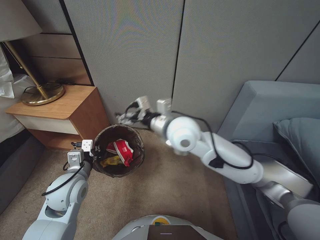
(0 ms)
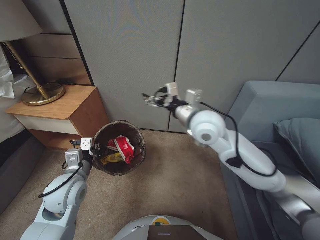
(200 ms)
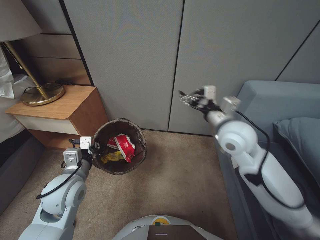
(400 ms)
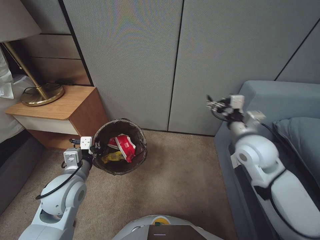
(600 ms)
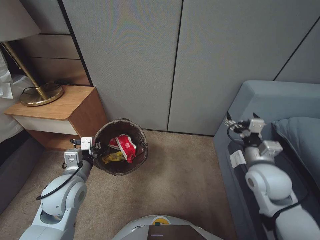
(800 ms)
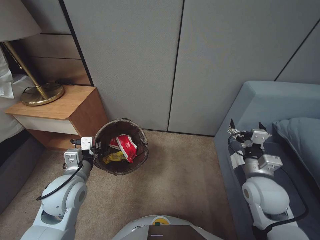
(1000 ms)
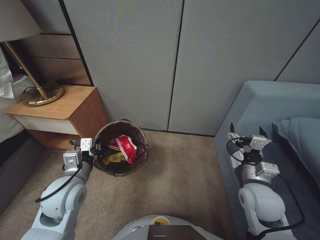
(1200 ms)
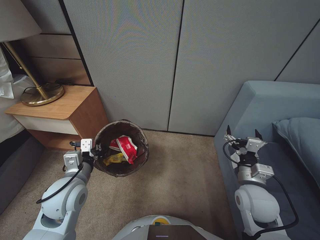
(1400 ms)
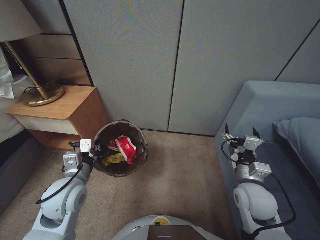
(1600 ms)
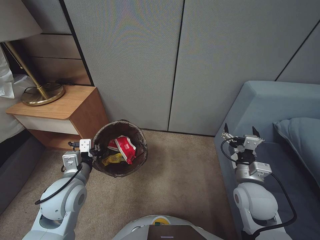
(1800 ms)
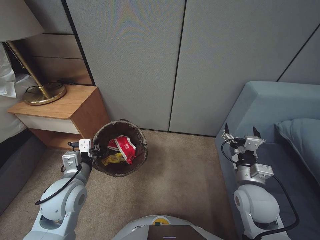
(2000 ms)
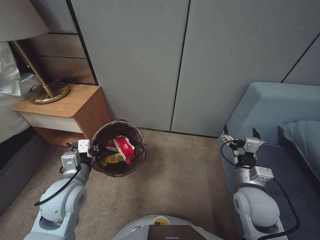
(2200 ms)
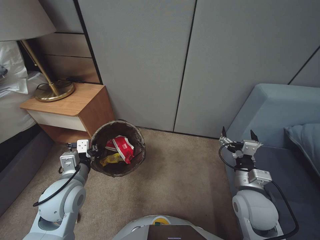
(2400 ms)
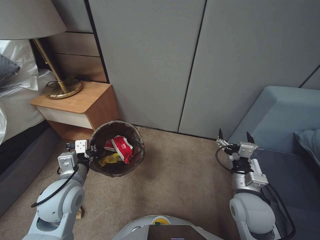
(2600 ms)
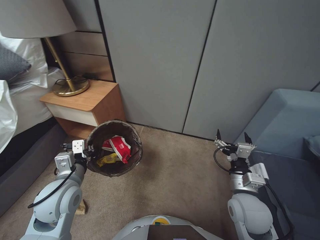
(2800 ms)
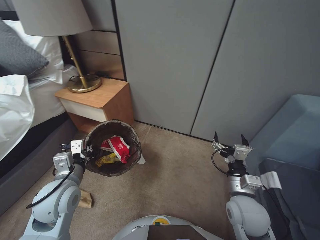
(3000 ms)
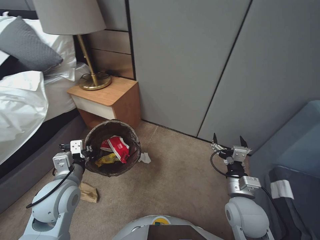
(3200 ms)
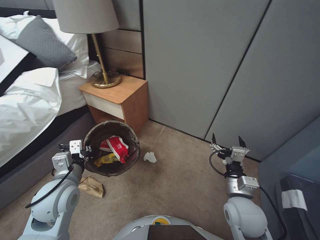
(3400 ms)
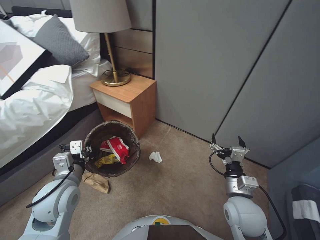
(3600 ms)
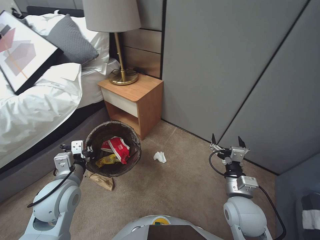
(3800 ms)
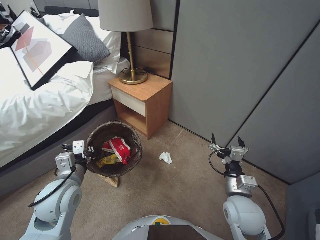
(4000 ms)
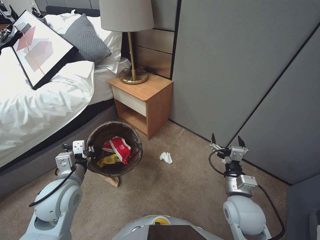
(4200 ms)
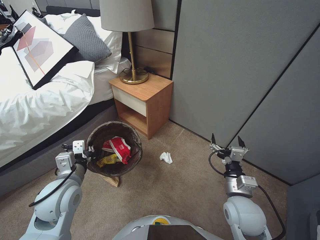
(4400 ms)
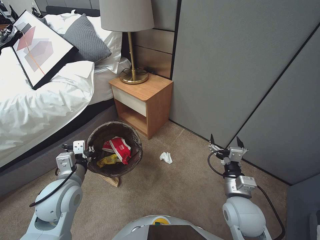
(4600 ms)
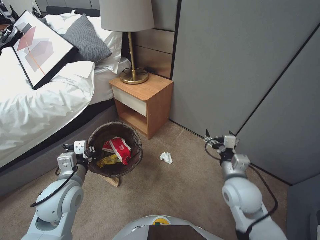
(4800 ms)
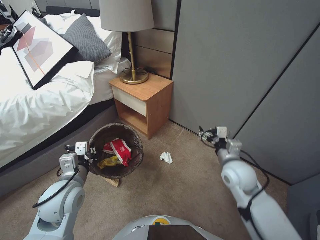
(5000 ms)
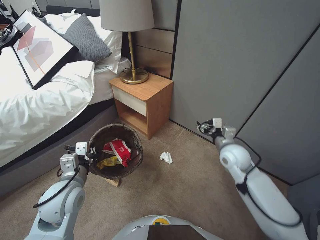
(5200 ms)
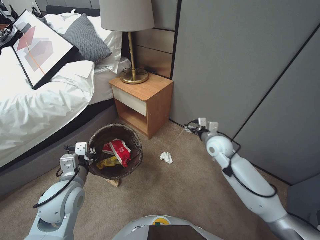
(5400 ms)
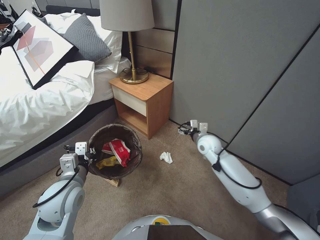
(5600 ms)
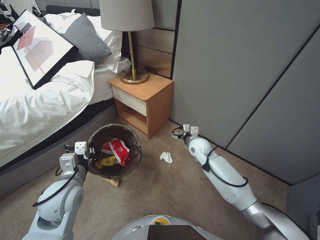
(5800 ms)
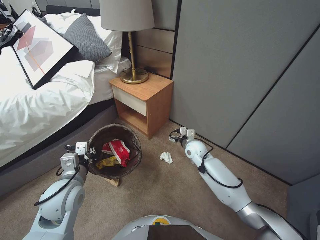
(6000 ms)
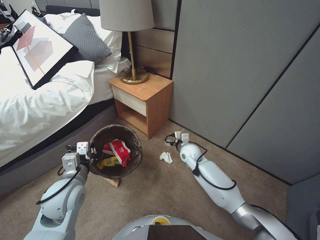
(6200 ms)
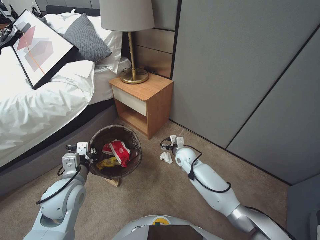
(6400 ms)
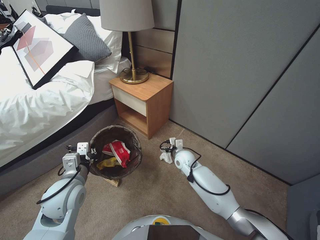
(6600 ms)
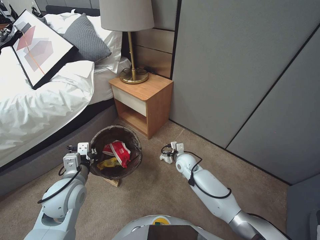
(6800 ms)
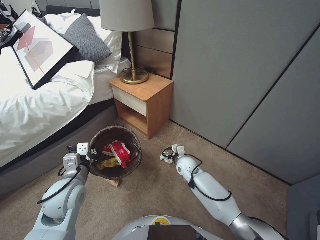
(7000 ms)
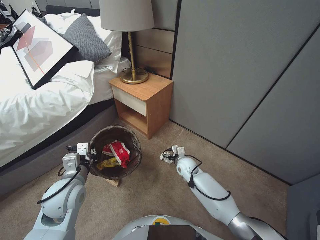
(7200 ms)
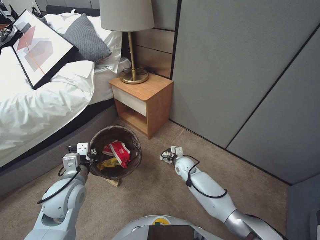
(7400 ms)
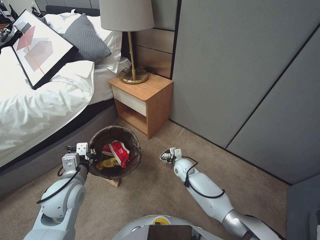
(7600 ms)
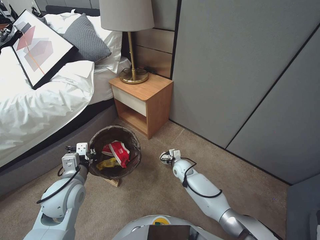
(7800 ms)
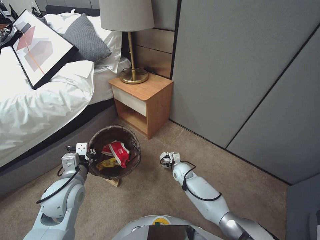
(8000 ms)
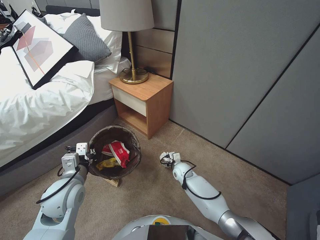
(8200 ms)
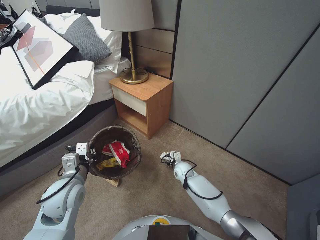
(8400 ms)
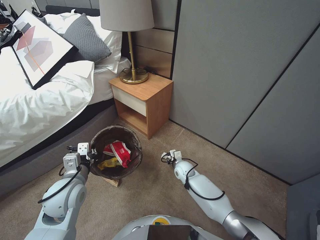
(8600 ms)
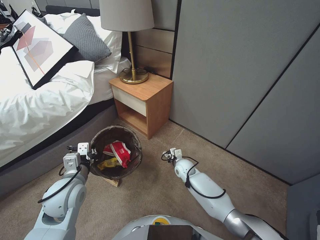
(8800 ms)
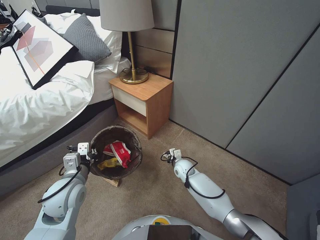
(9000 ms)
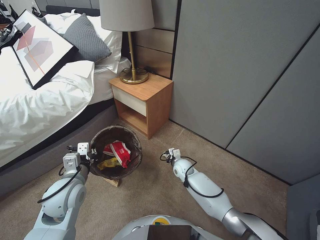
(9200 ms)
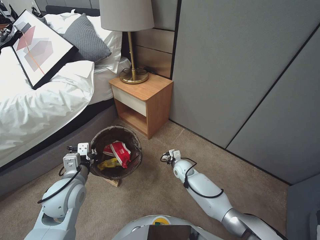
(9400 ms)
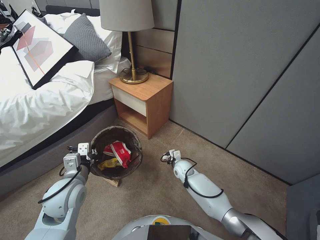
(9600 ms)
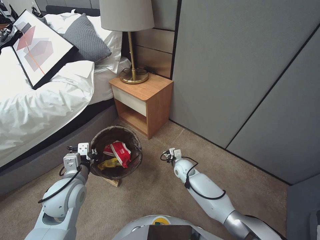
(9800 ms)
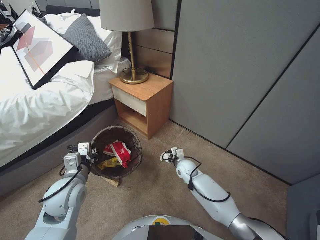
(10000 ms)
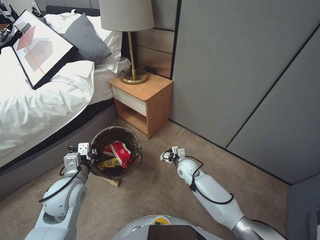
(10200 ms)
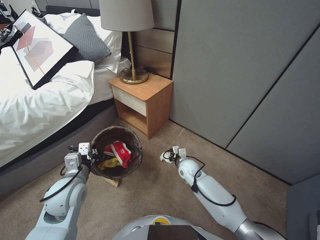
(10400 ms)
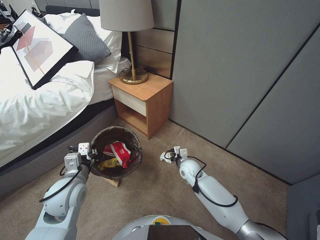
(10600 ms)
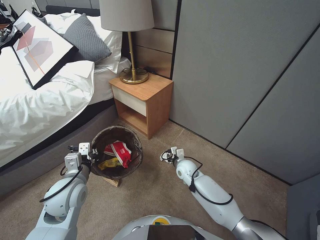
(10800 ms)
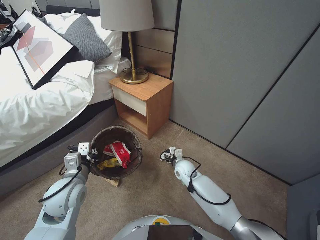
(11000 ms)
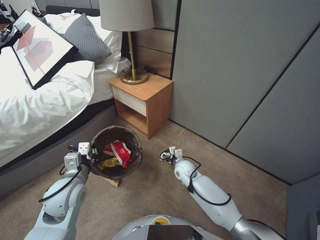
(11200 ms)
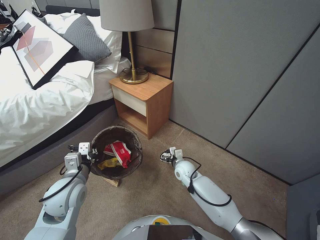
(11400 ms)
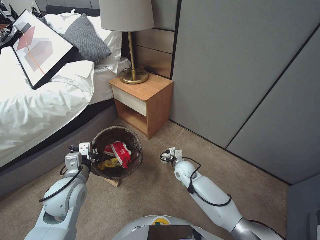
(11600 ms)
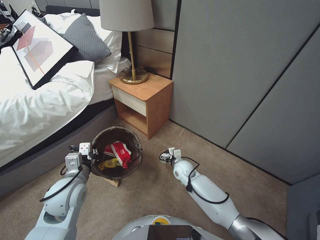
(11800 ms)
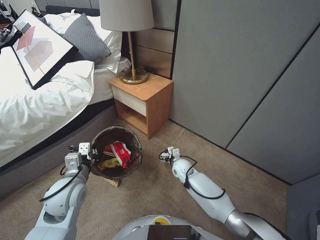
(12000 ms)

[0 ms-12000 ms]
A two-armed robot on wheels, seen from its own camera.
Task of the whole recording: Pick up the trash bin, then pick up the garbage from the floor and place it into the trash bin.
0 ms to 1600 ms: The right gripper is displaced to the right, downward and backward by some 30 cm.
4400 ms to 6000 ms: The right gripper shifts some 25 cm forward.
6000 ms to 7600 ms: The right gripper shifts some 10 cm downward.
7600 ms to 9000 ms: The right gripper closes its fingers.
9000 ms to 10400 ms: The grippers move only a little.
10400 ms to 12000 ms: The right gripper opens its fingers.

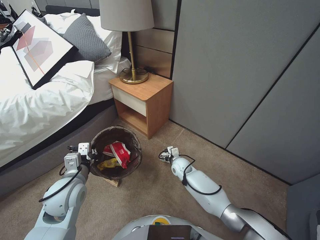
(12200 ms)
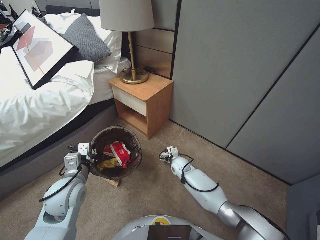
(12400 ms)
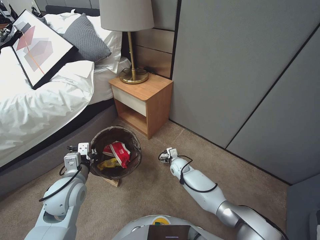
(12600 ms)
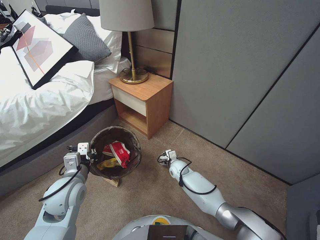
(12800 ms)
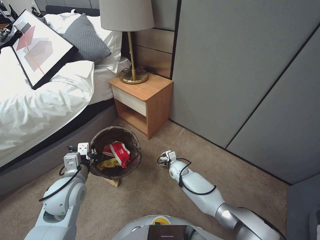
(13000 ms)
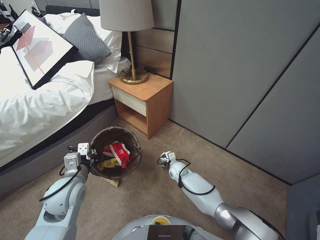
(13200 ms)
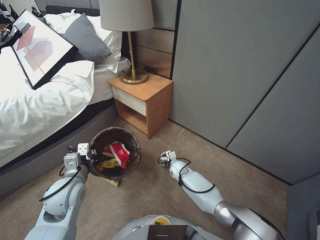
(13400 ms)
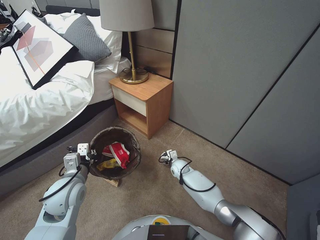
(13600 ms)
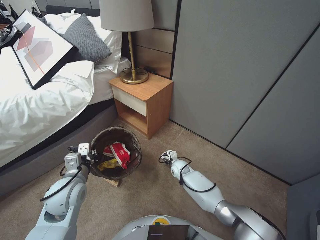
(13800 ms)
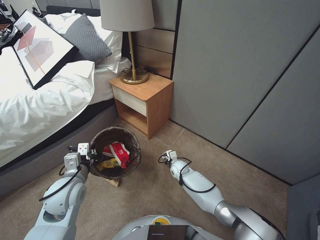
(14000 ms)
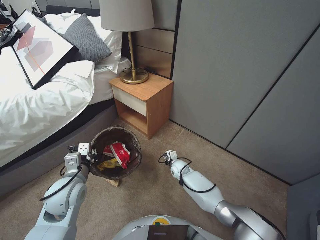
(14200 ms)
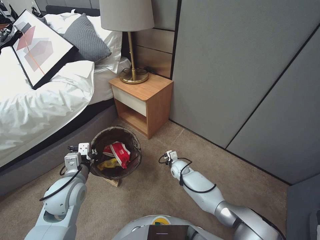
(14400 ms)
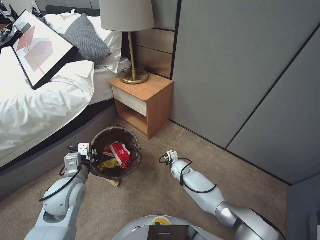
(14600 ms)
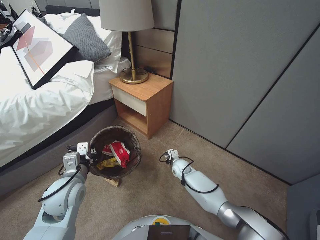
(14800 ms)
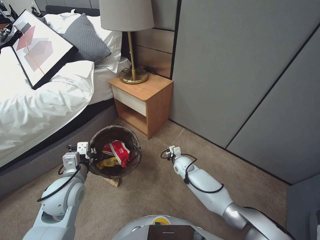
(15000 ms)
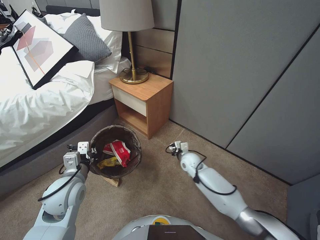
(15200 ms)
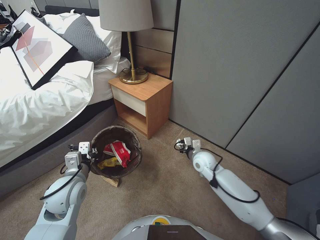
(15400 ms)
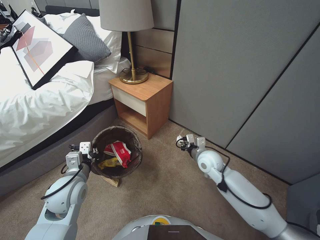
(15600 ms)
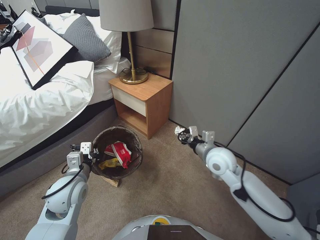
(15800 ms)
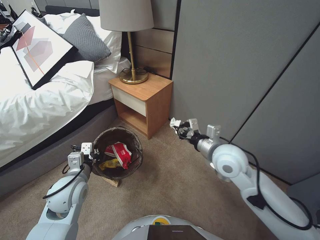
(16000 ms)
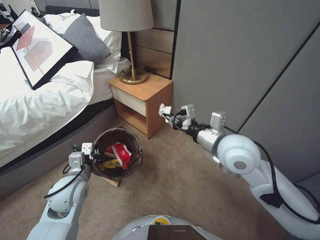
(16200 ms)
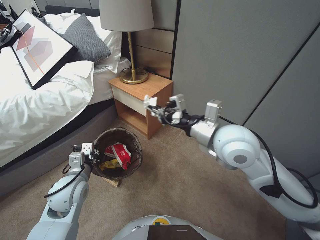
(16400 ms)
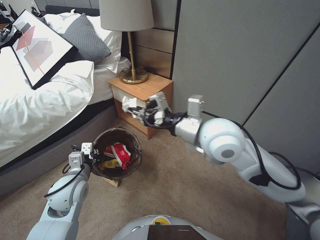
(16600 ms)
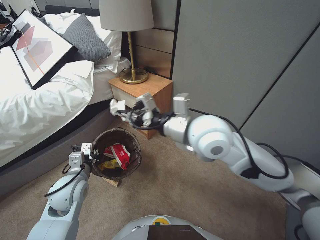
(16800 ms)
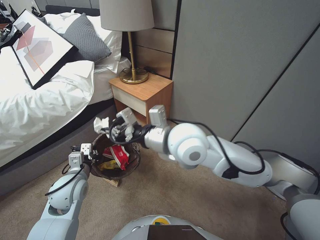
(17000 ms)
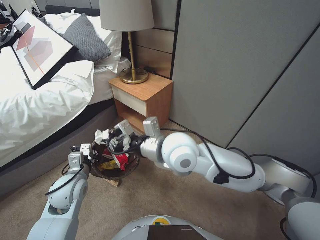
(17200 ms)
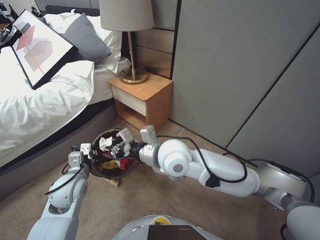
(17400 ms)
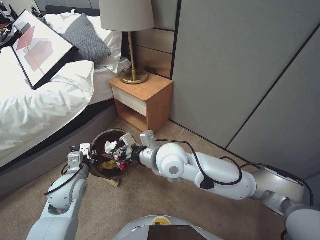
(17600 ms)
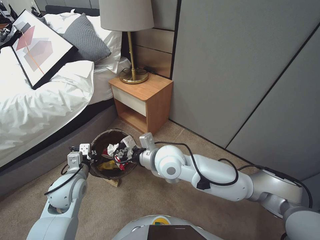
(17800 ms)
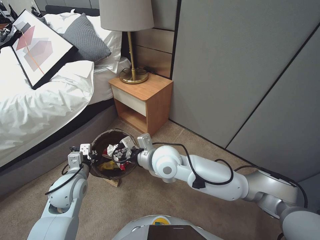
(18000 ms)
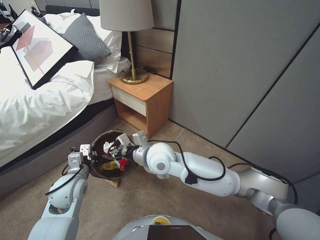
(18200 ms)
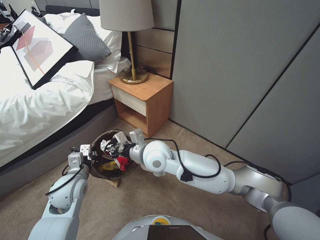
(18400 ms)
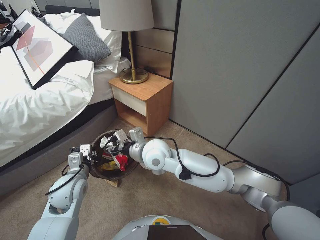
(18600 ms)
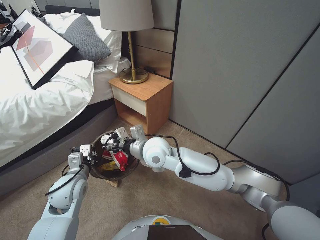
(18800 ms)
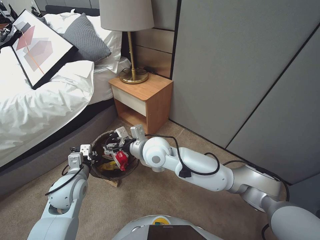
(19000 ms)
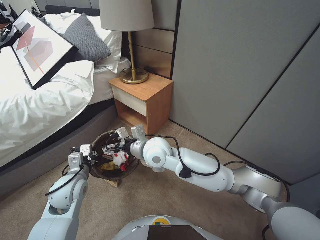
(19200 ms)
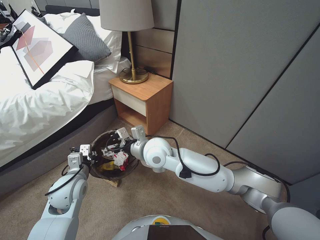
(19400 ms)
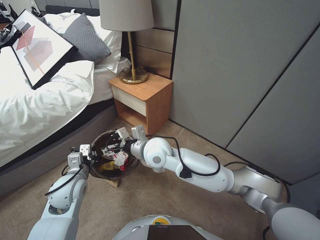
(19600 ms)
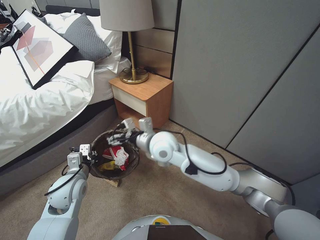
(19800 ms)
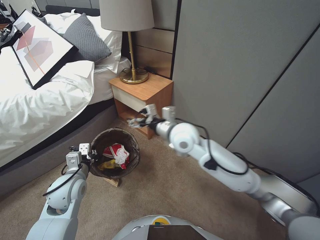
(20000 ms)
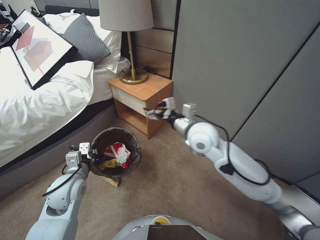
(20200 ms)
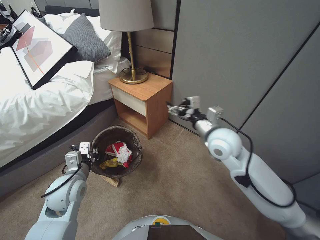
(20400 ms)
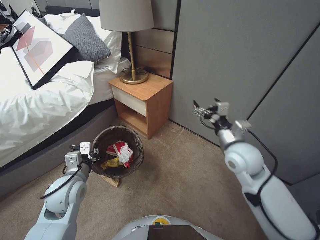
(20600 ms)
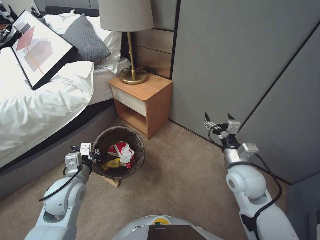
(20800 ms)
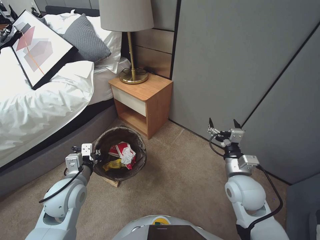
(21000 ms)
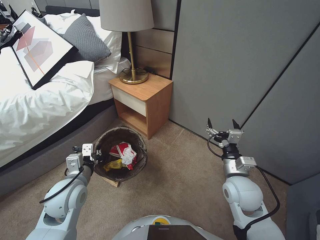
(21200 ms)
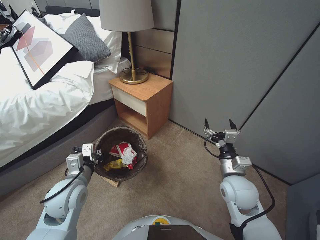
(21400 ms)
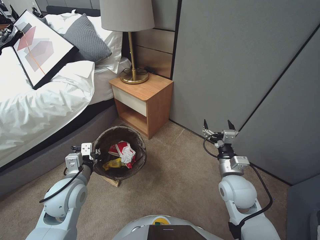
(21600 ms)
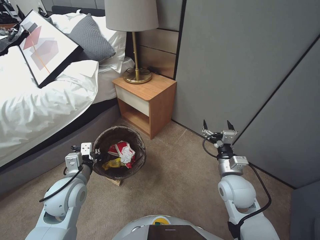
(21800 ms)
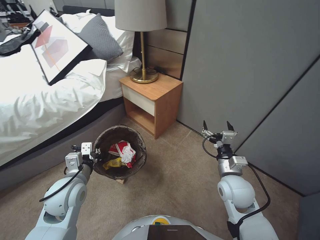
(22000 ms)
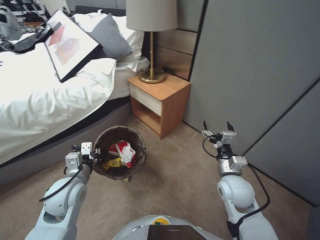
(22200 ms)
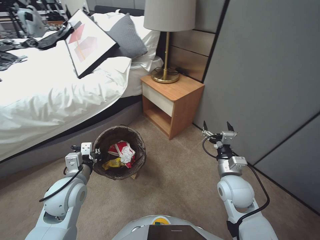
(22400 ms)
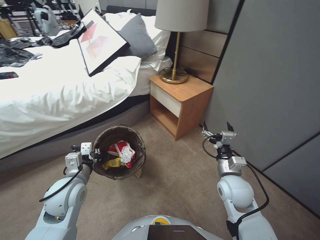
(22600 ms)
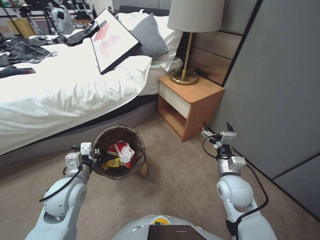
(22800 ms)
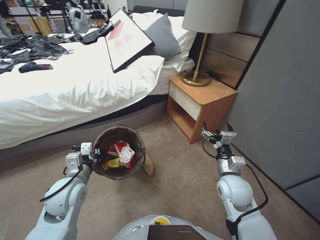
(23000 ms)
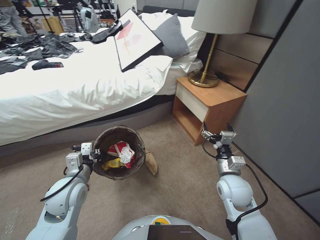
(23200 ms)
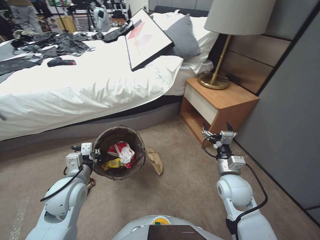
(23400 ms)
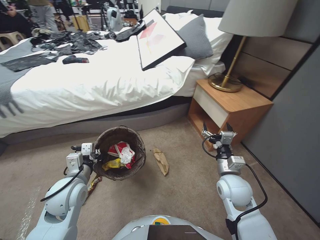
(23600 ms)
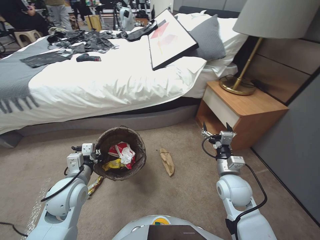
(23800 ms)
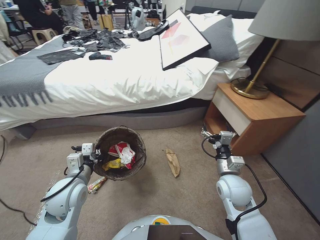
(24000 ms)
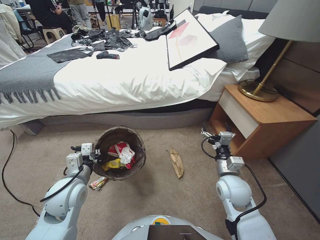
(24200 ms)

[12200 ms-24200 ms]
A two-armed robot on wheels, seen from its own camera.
Task of the whole recording: Pick up the trash bin, then pick up the garbage from the floor and place it into the trash bin.
12200 ms to 13800 ms: The grippers stay close to where they were, moving slightly.
13800 ms to 15200 ms: The right gripper goes about 10 cm upward, and closes up.
15200 ms to 16600 ms: The right gripper moves upward, about 35 cm.
16600 ms to 18200 ms: The right gripper moves to the left and downward, approximately 20 cm.
18200 ms to 19800 ms: The right gripper opens its fingers.
19800 ms to 21200 ms: The right gripper is displaced to the right by about 25 cm.
